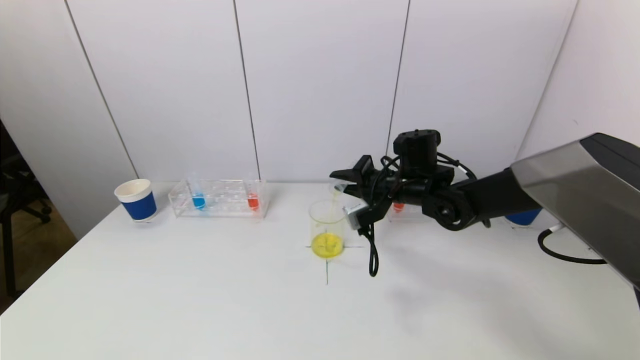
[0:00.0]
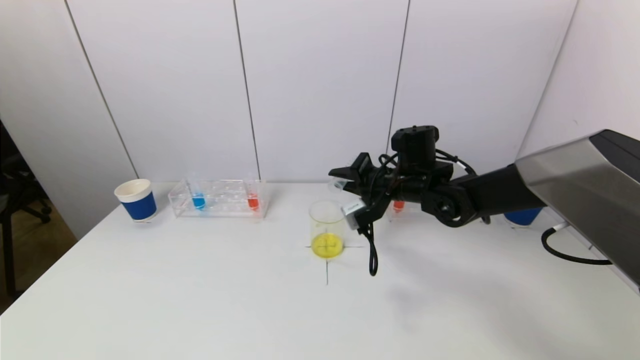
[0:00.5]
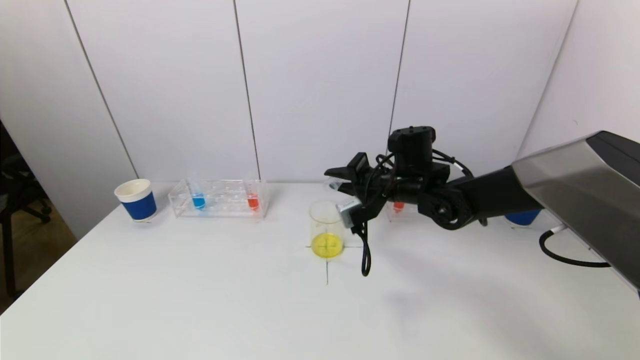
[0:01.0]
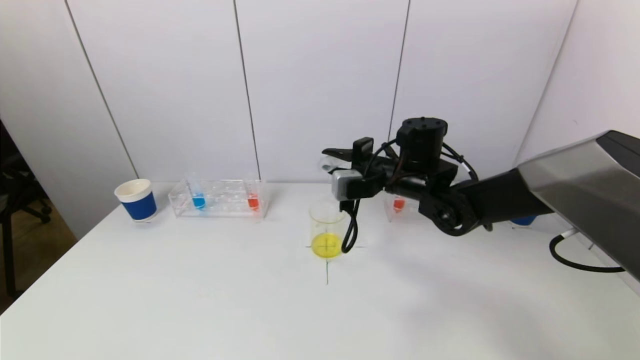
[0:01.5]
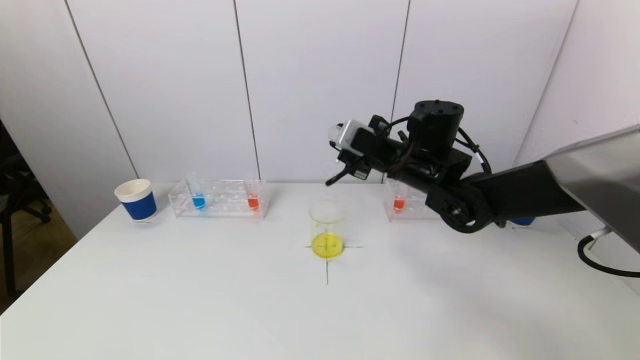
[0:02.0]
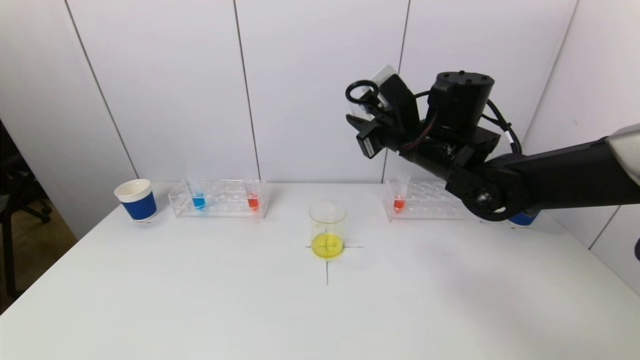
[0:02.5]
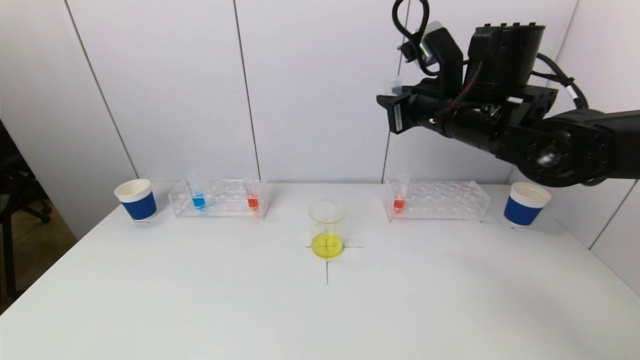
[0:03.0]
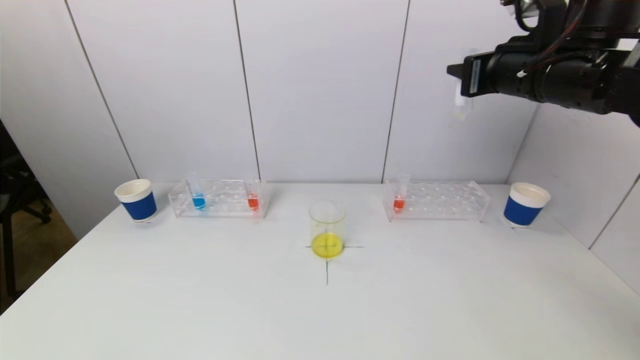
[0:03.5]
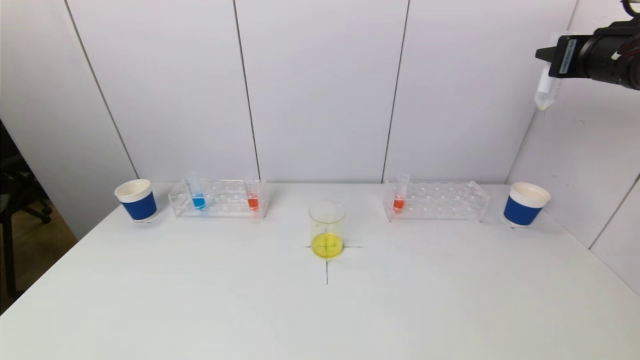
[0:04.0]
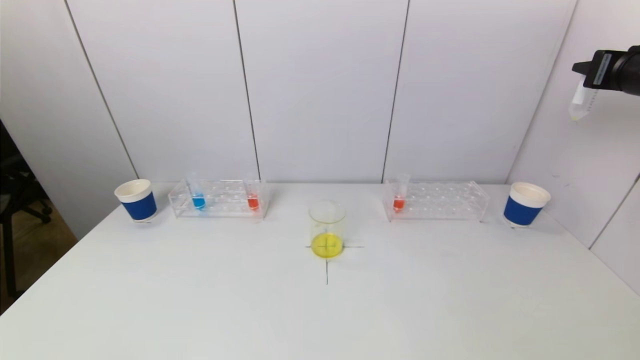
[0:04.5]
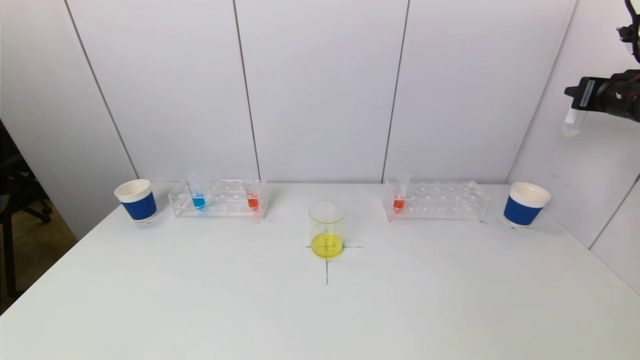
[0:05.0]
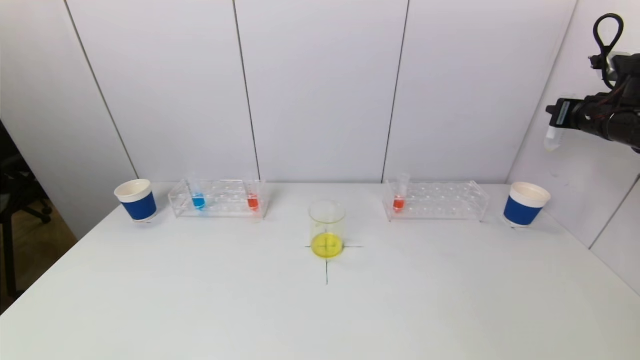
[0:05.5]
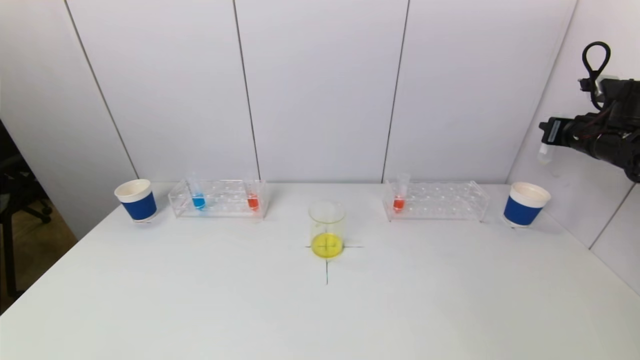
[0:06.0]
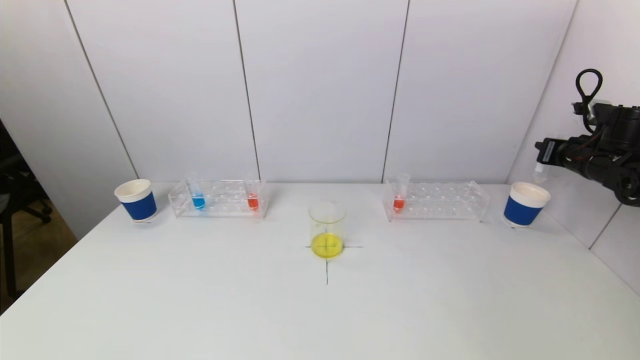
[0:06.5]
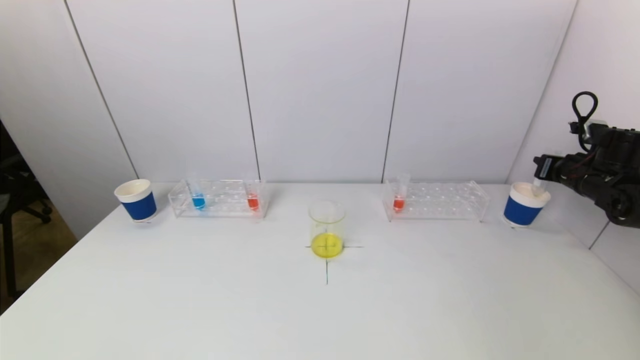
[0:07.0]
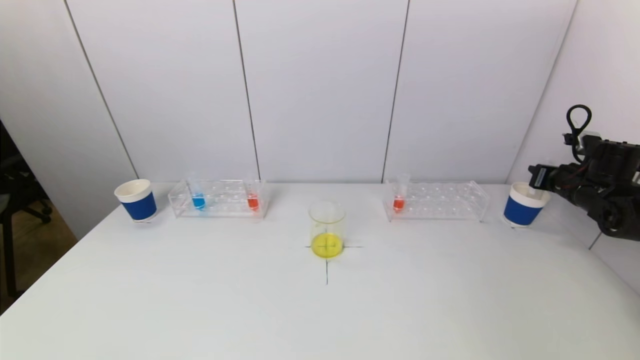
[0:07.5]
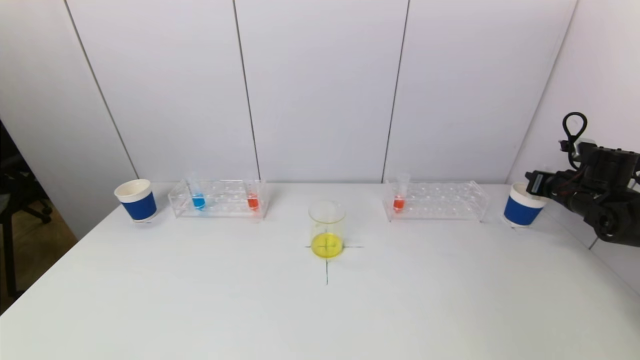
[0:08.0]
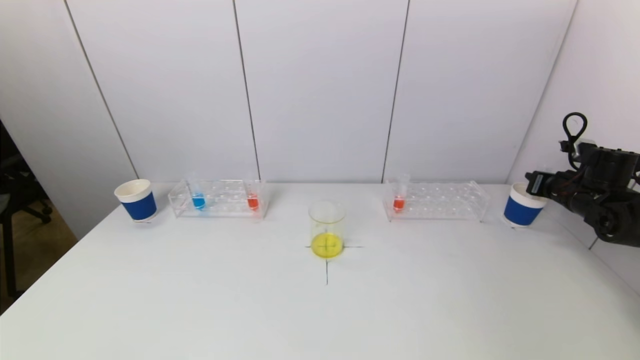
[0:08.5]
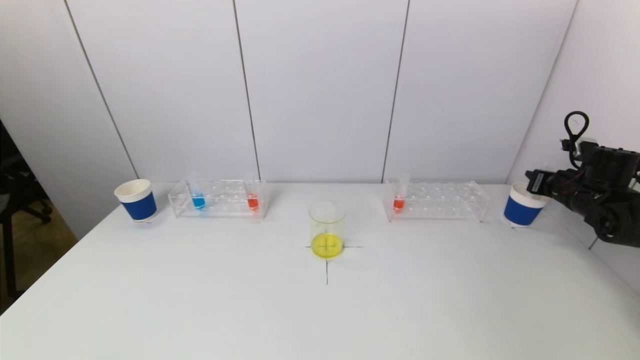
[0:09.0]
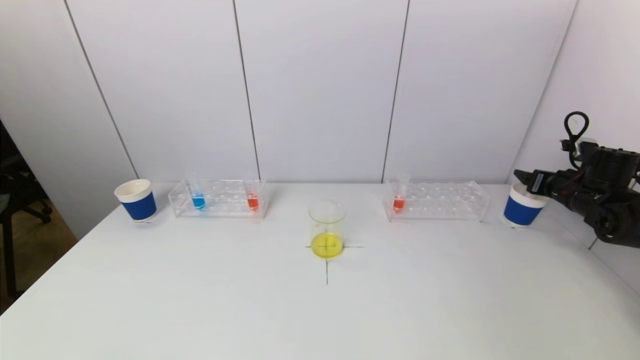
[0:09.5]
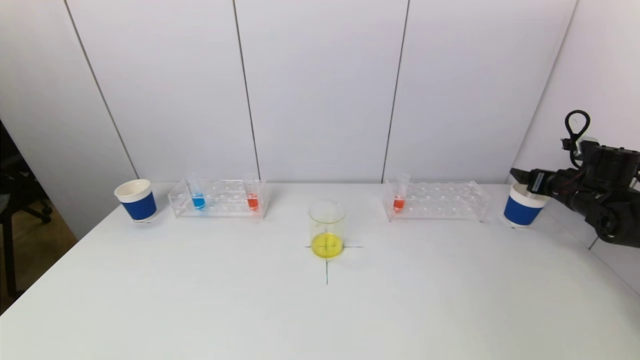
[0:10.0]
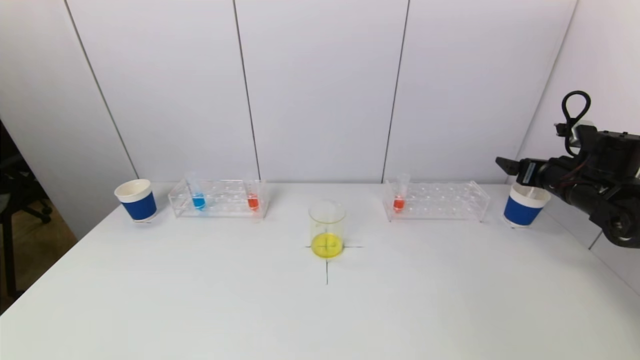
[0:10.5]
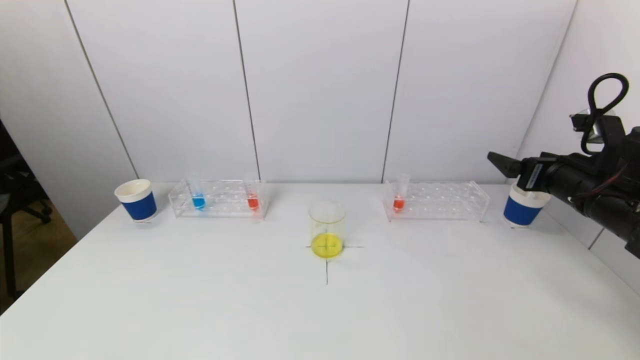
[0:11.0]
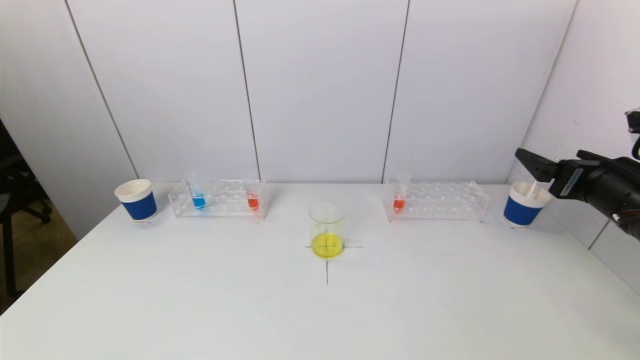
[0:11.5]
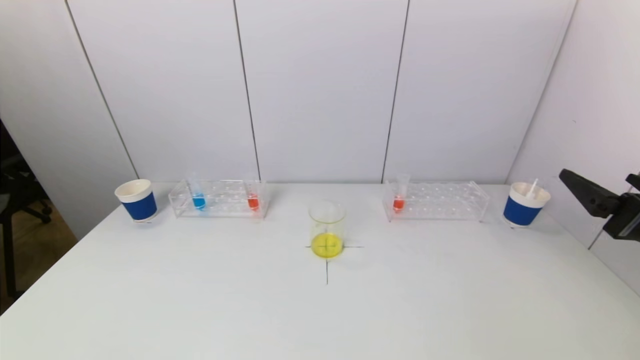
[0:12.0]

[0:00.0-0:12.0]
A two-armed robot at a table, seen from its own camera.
Task of the whole recording: pick up a test tube with pigment on left test tube rack and a test tube with pigment on right test tube rack by grippers and pour them into the beaker.
Step, 0:01.0 to 0:09.5: Place the test tube into the paper cup with the right gripper.
0:00.0 to 0:02.0: The right gripper shifts about 5 cm upward.
0:02.0 to 0:04.0: The right gripper travels to the right and upward by some 25 cm.
0:04.0 to 0:06.0: The right gripper is displaced downward, to the right and forward by about 20 cm.
0:06.0 to 0:08.0: The right gripper travels downward by approximately 10 cm.
0:08.0 to 0:10.0: The right gripper opens its fingers.
0:10.0 to 0:12.0: The right gripper shifts approximately 25 cm backward and to the left.

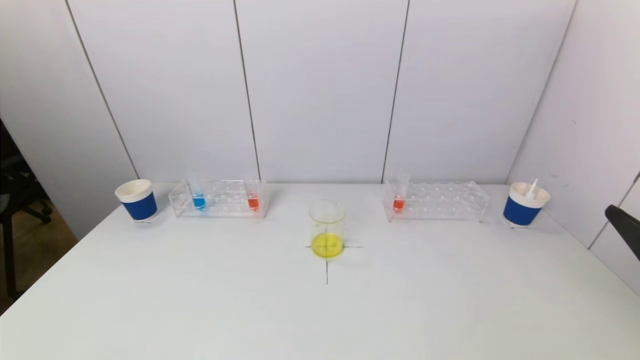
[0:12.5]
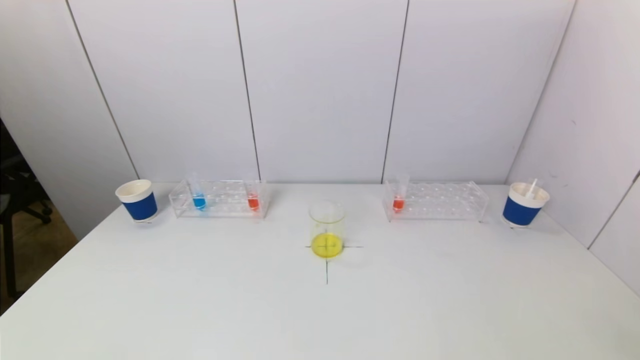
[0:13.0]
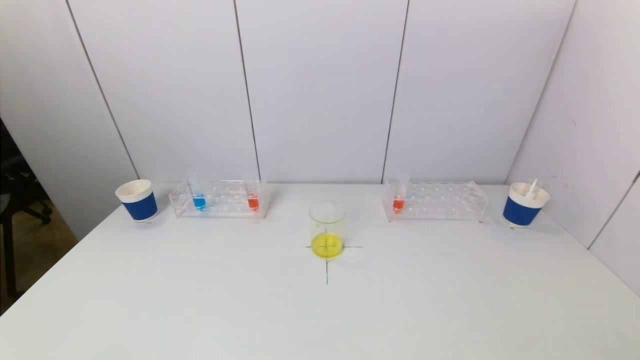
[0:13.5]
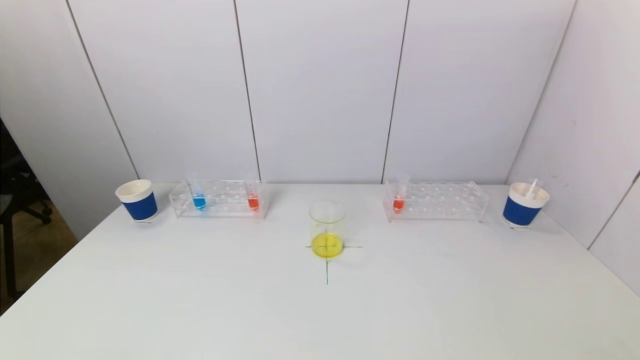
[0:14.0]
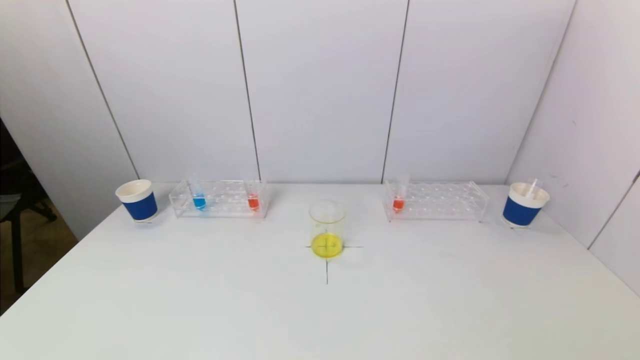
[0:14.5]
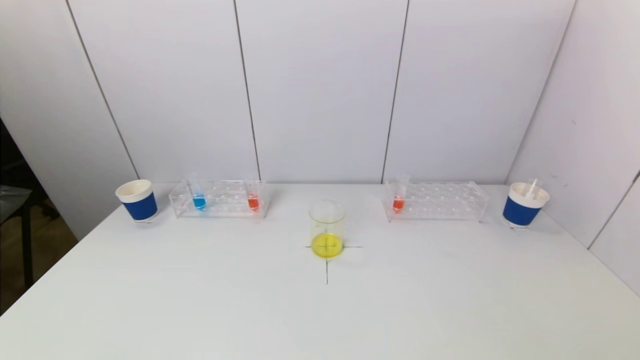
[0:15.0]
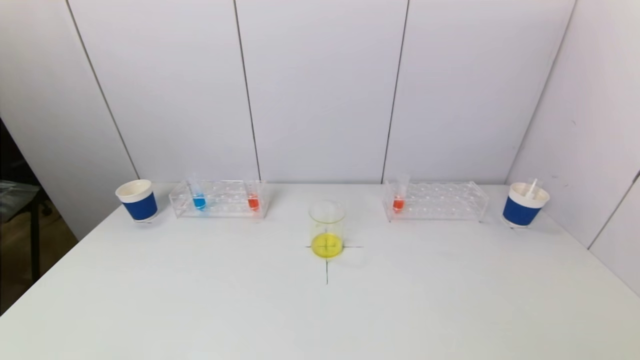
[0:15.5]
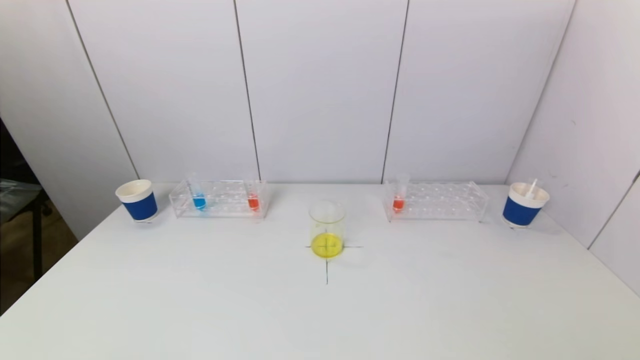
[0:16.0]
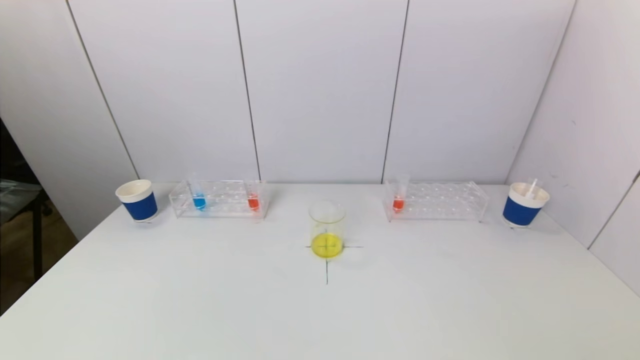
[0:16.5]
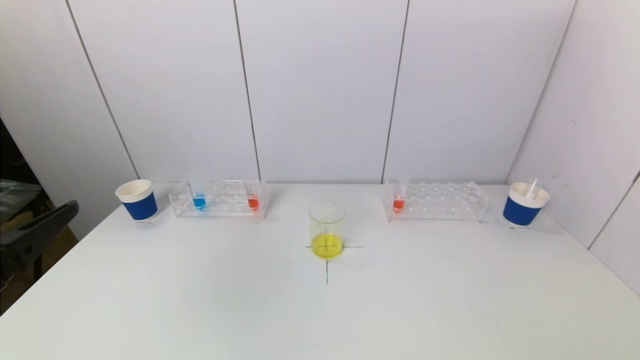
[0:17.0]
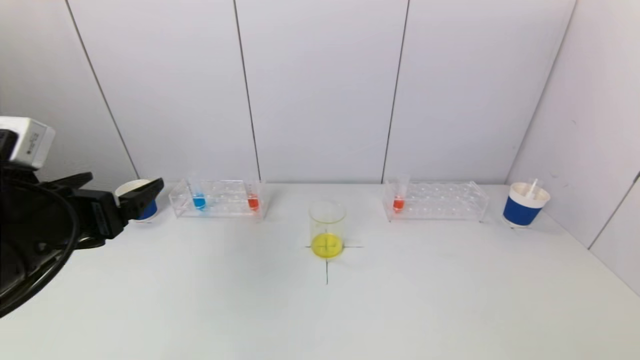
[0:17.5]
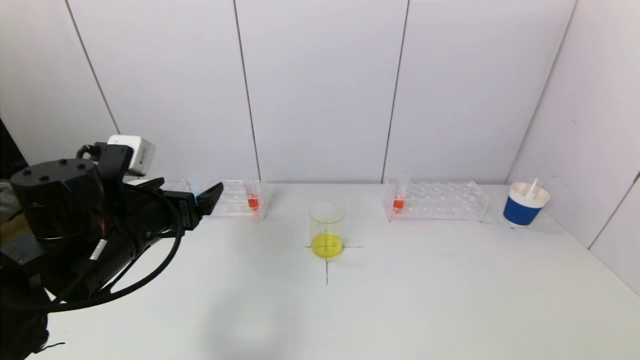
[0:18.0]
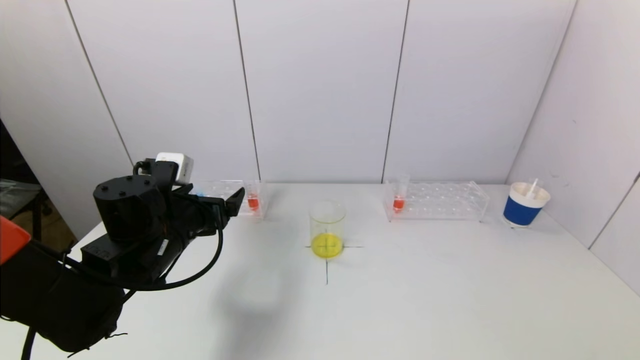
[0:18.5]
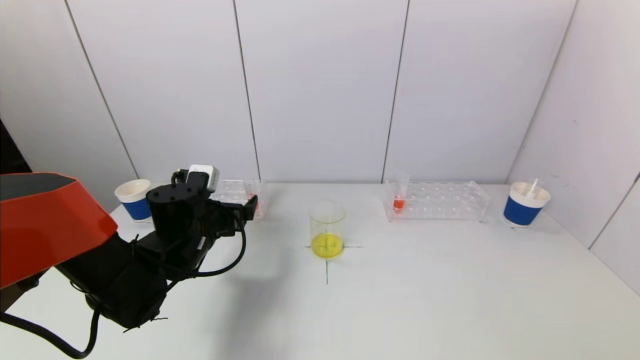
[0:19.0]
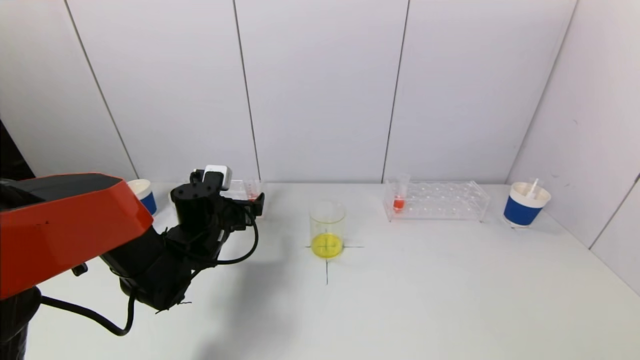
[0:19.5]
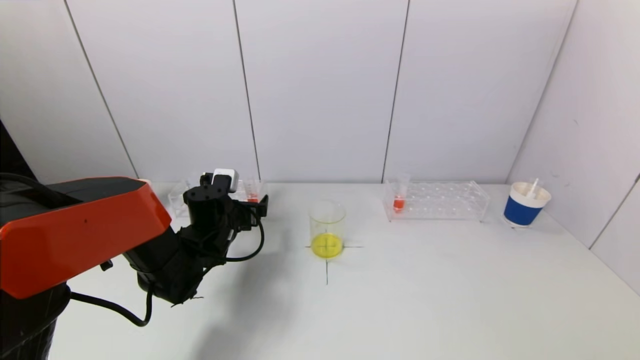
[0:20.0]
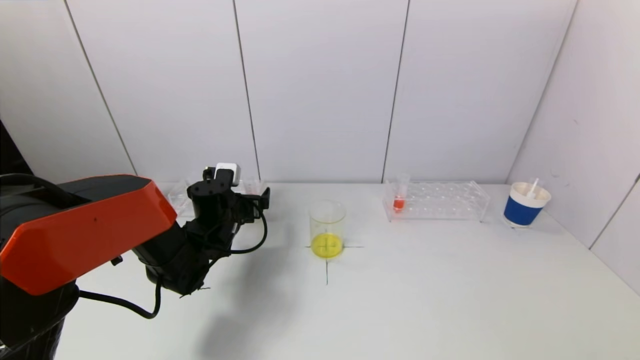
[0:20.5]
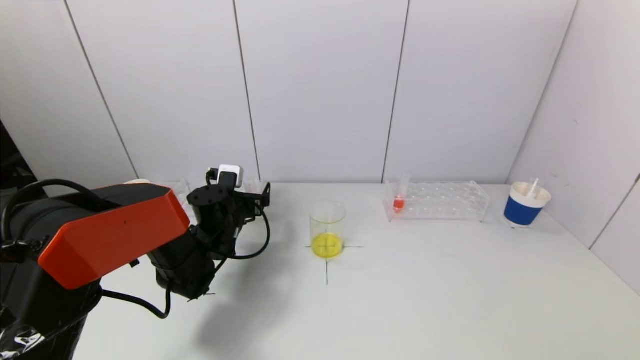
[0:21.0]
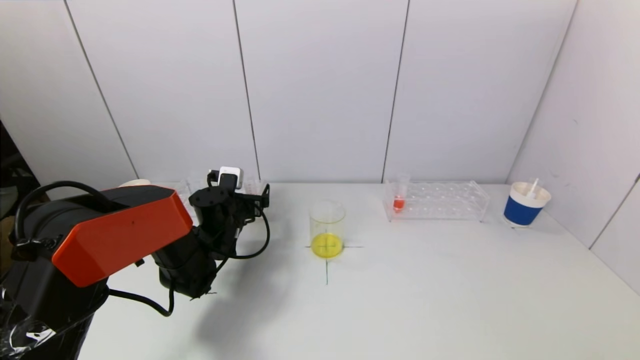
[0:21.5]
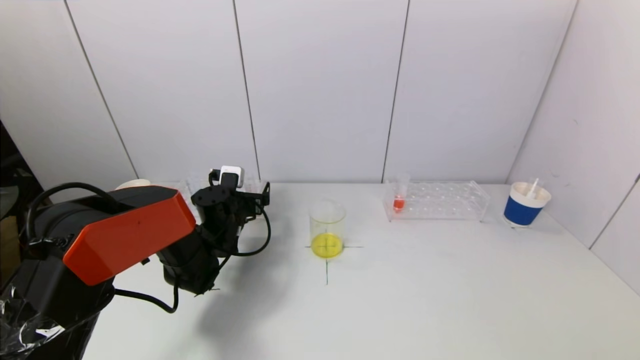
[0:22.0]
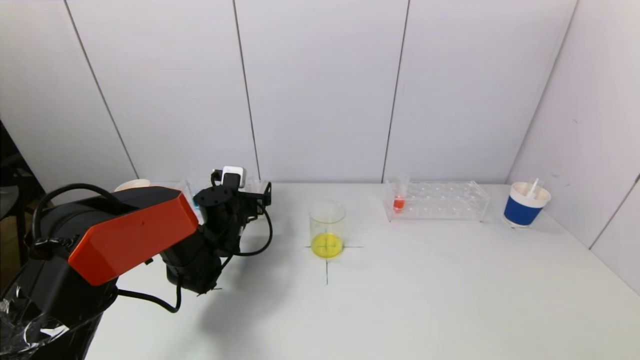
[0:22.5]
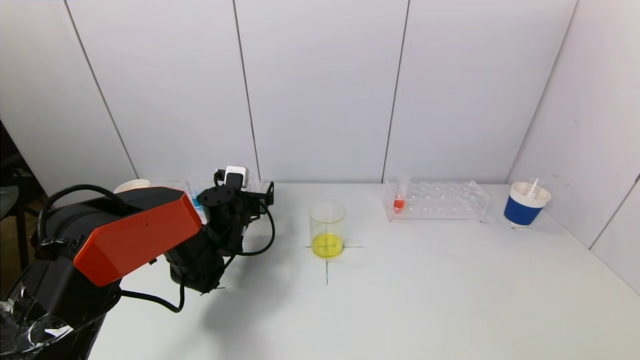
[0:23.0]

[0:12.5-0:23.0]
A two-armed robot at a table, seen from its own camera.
Task of the whole recording: pick up a test tube with pigment on left test tube rack and a test tube with pigment on right test tube rack by grippers and pour them into the beaker.
0:12.5 to 0:14.5: The right gripper travels backward and downward by approximately 15 cm.
0:14.5 to 0:16.5: The left gripper heads upward, covering roughly 15 cm.
0:16.5 to 0:19.0: The left gripper shifts approximately 35 cm forward.
0:19.0 to 0:21.0: The left gripper shifts about 5 cm forward.
0:21.0 to 0:23.0: There are only small adjustments of the grippers.
